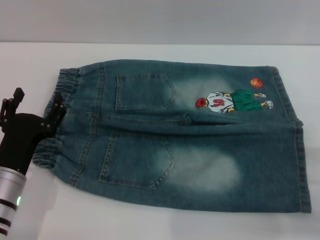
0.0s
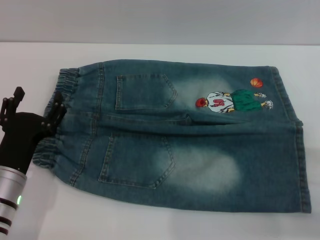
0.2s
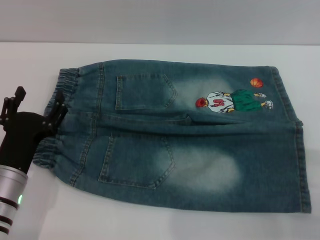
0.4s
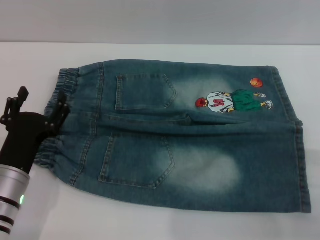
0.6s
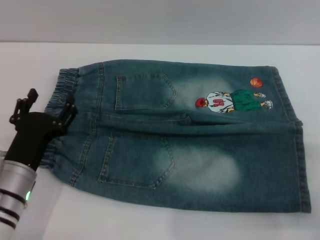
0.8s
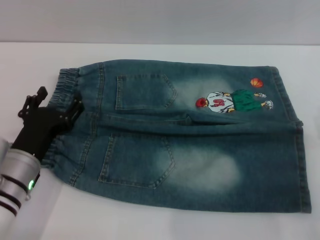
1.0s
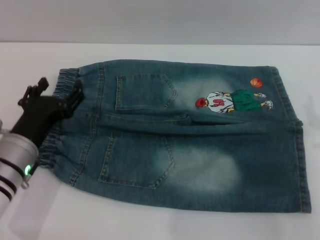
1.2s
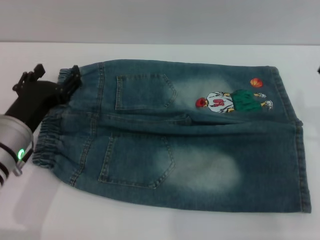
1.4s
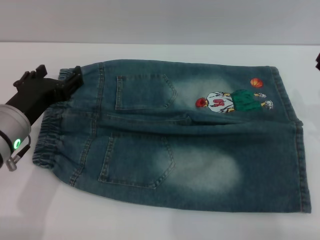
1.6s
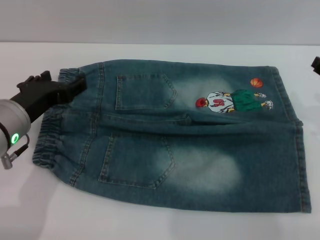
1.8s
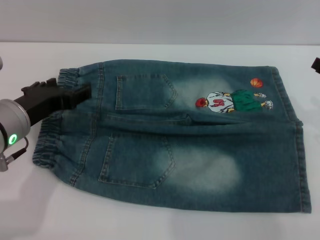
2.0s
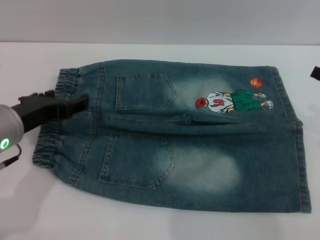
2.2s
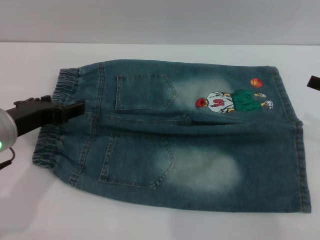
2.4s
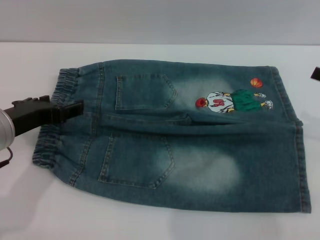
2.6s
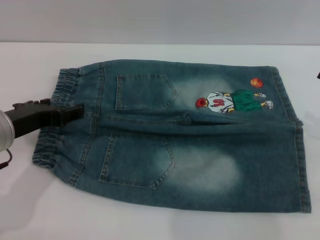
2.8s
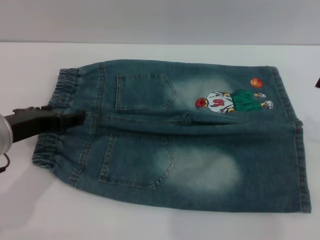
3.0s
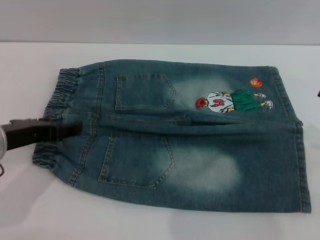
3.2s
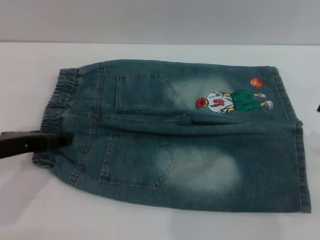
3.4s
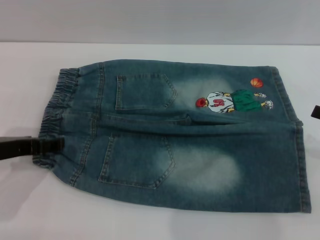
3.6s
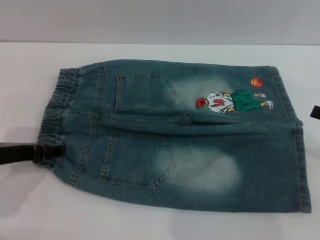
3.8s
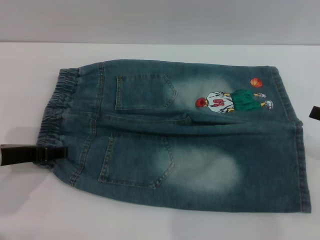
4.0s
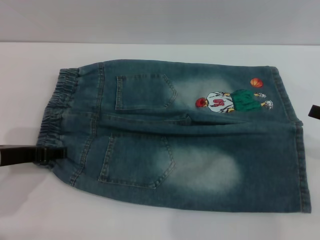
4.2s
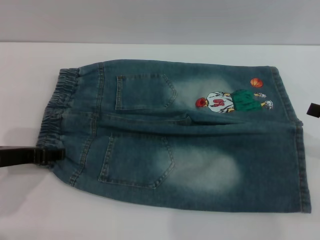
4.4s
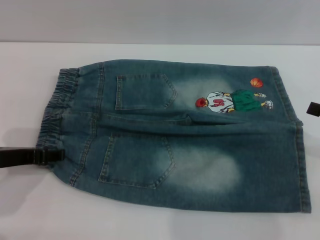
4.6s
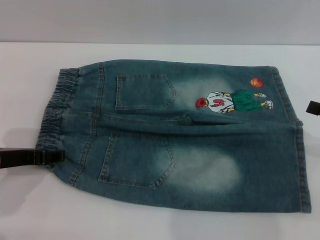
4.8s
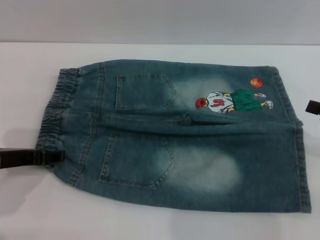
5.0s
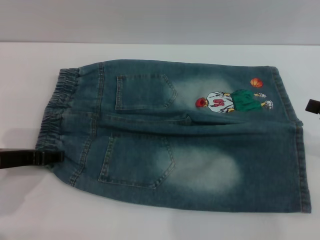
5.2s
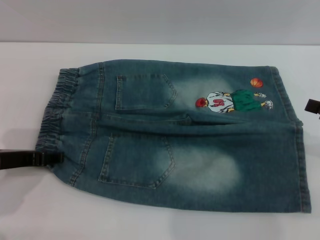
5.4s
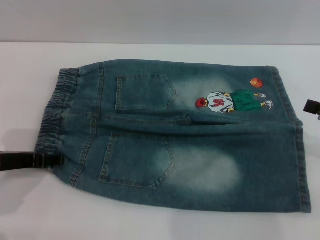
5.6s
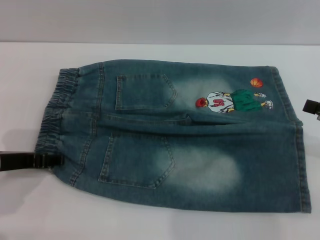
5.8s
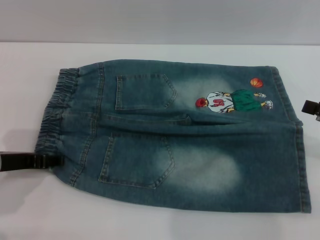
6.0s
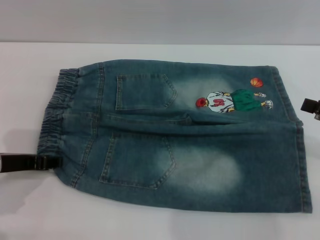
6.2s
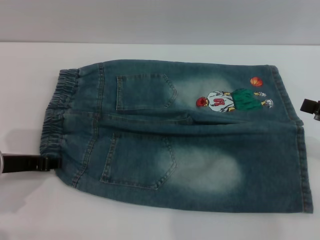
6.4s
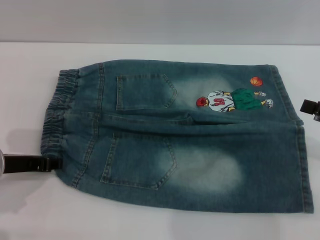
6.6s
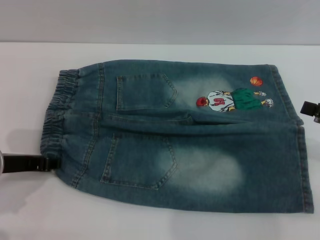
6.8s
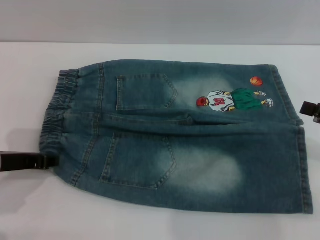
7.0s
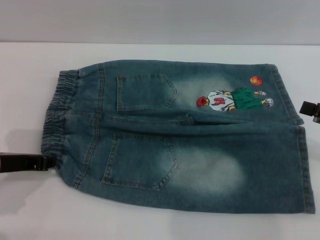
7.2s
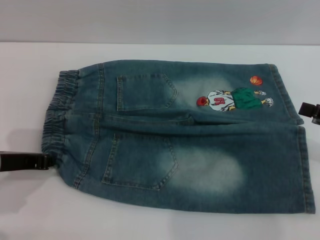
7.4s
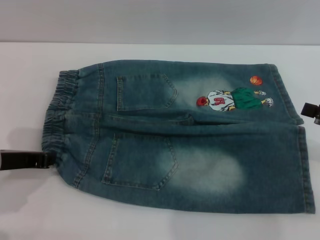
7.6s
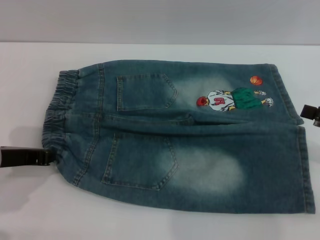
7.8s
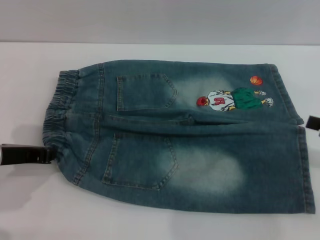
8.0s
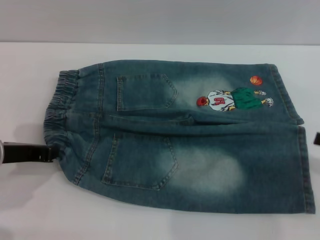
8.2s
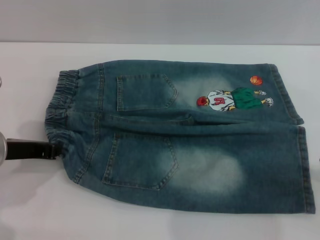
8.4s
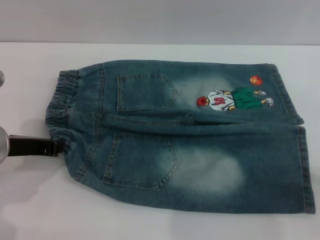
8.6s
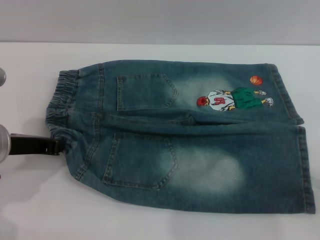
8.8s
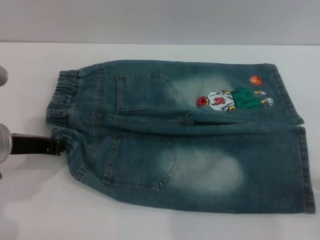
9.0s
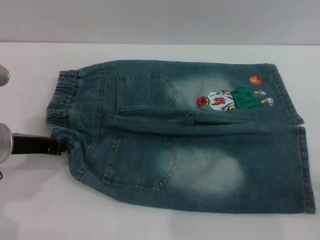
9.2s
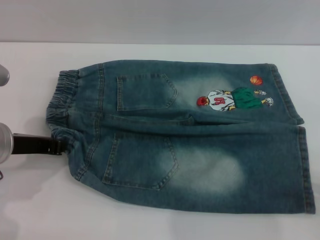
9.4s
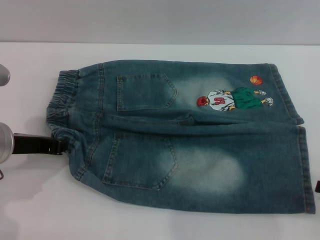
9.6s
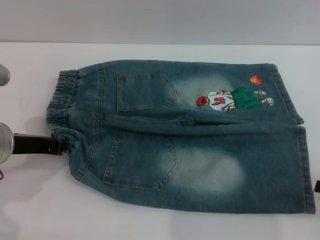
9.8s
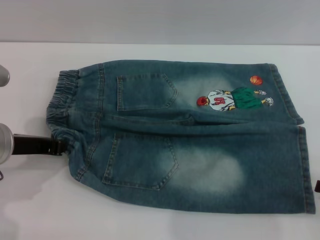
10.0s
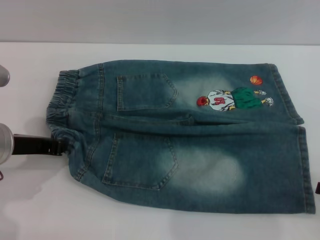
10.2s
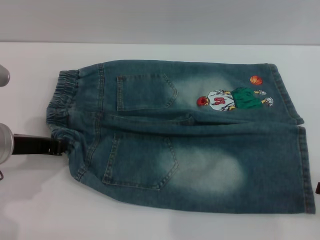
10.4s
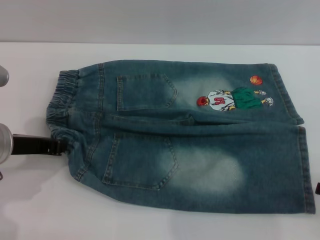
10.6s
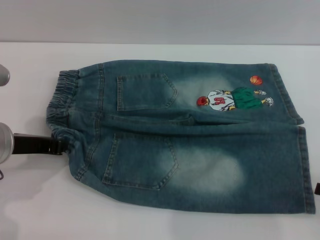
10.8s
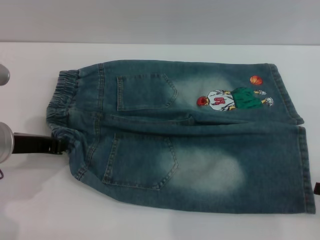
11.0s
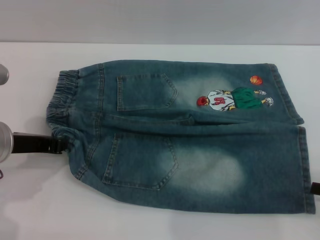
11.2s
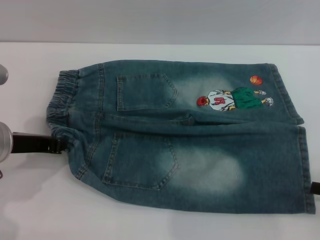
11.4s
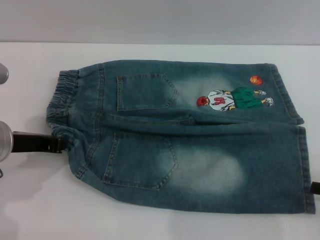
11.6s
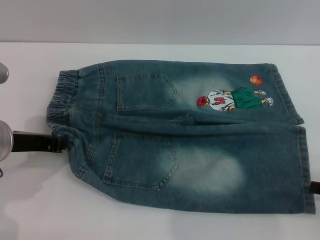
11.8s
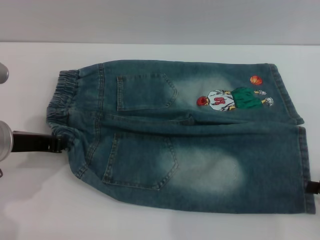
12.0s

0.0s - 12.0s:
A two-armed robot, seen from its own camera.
0.0s - 1.6s: Both grippers travel together upward and forward, about 10 cm.
3.0s - 4.4s: The grippers make only small movements.
4.4s - 6.0s: Both grippers stay put.
6.0s - 7.6s: The left gripper closes.
10.4s - 12.0s: Neither gripper changes place.

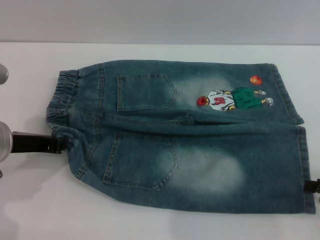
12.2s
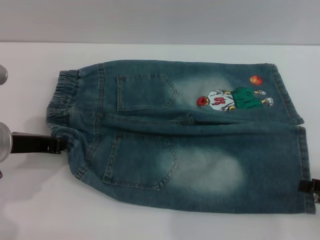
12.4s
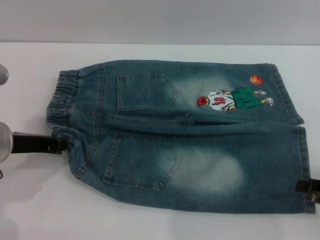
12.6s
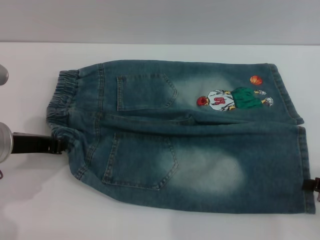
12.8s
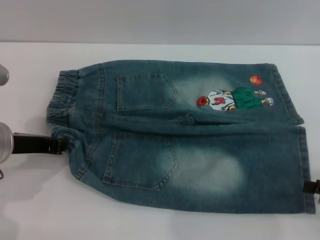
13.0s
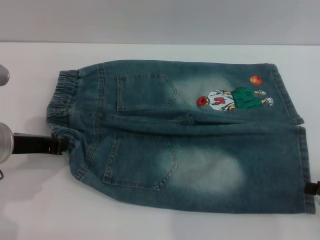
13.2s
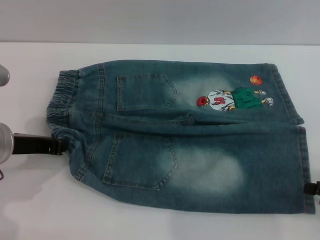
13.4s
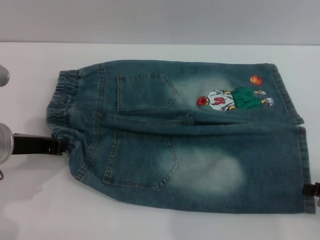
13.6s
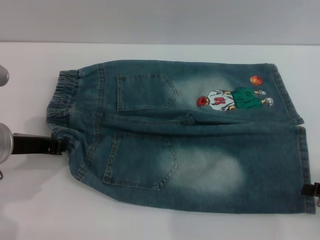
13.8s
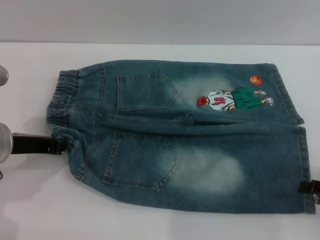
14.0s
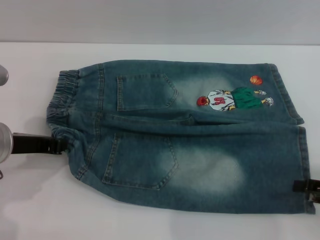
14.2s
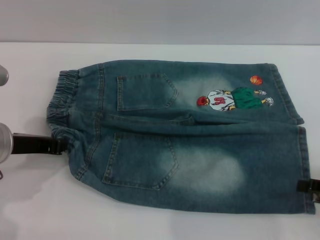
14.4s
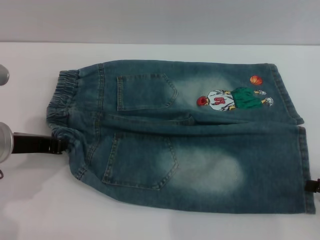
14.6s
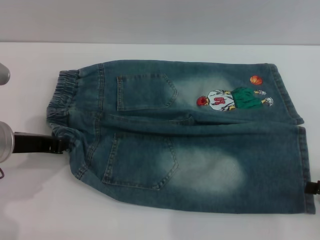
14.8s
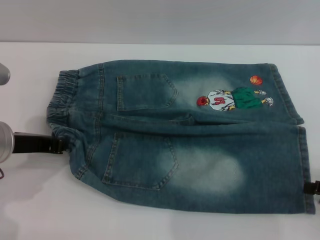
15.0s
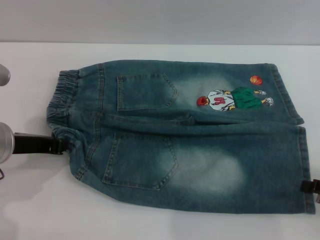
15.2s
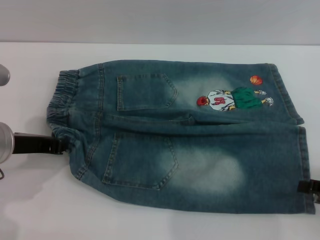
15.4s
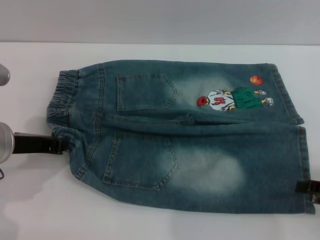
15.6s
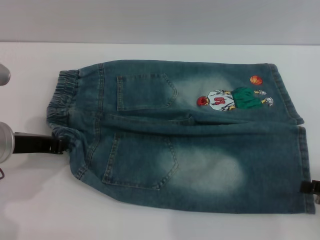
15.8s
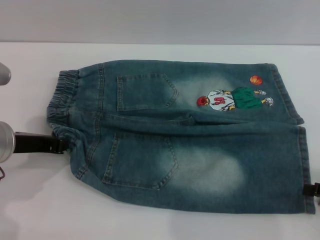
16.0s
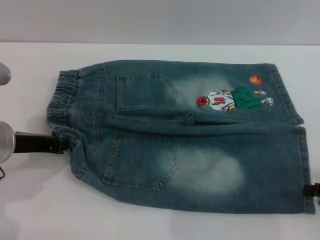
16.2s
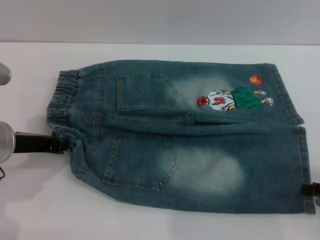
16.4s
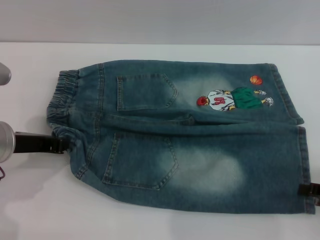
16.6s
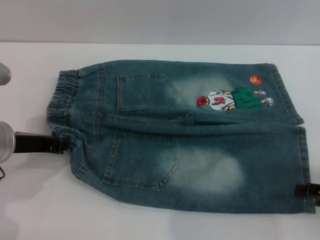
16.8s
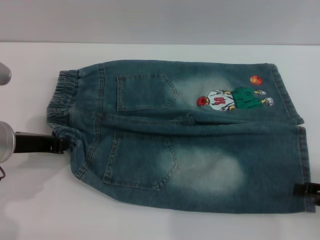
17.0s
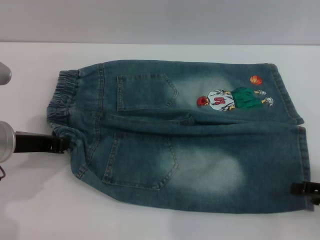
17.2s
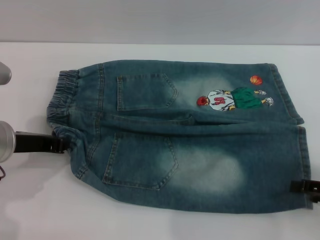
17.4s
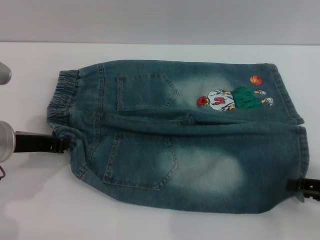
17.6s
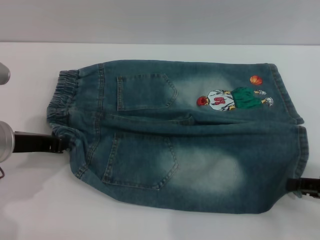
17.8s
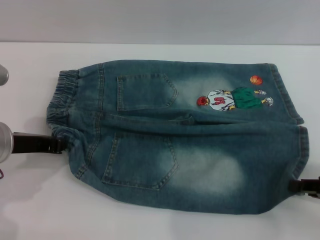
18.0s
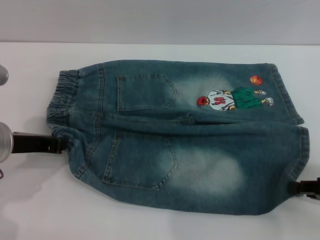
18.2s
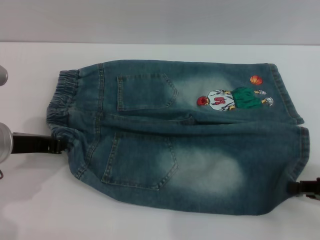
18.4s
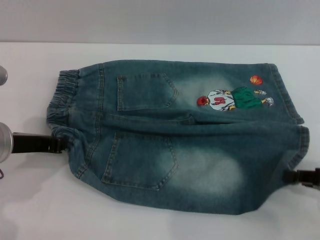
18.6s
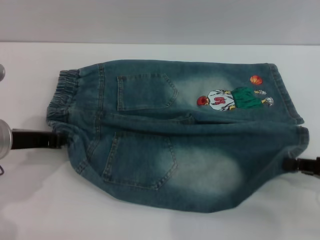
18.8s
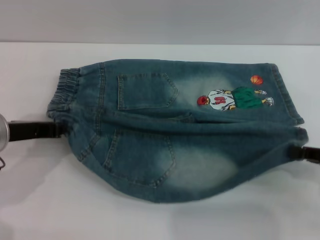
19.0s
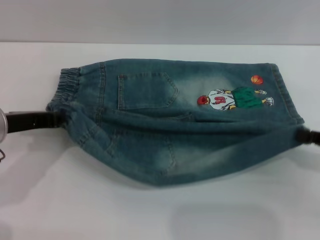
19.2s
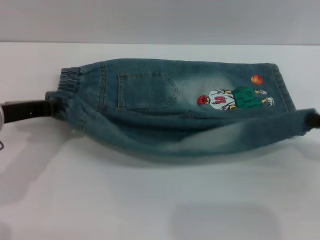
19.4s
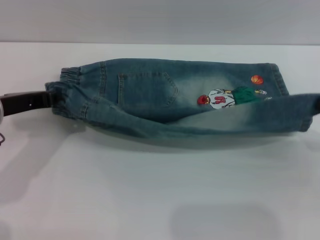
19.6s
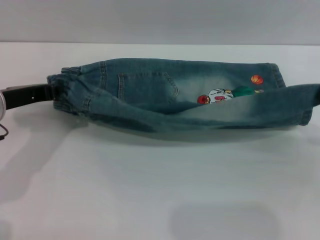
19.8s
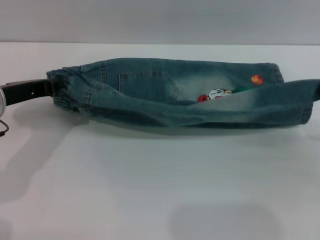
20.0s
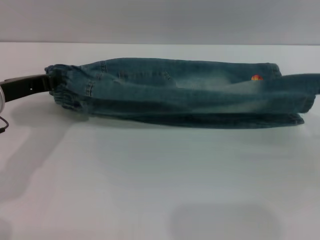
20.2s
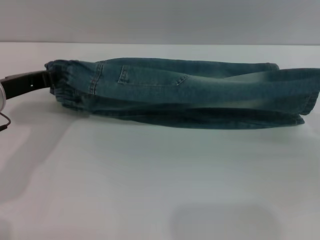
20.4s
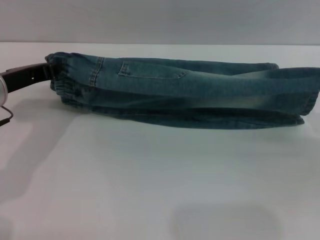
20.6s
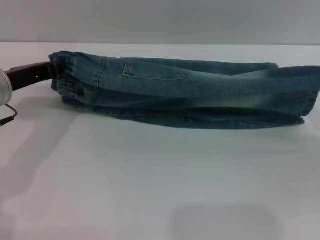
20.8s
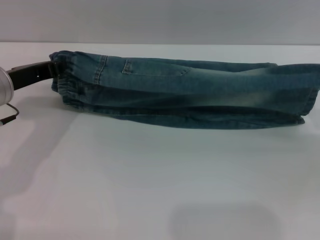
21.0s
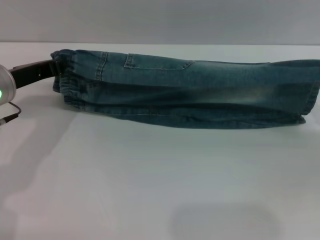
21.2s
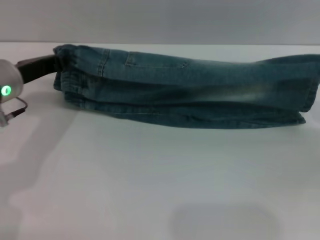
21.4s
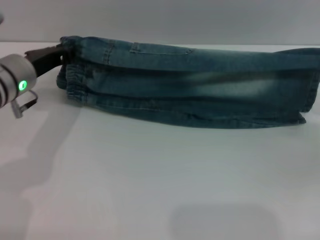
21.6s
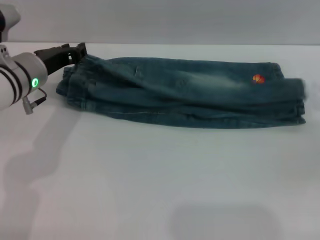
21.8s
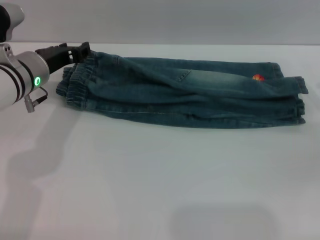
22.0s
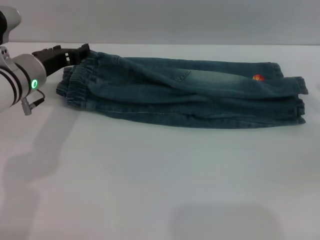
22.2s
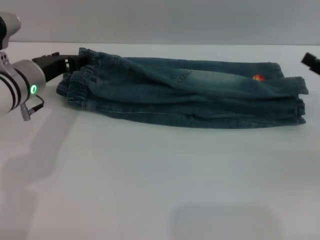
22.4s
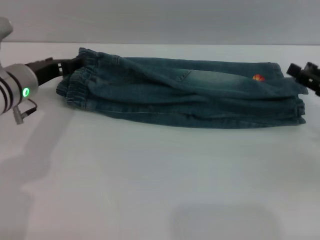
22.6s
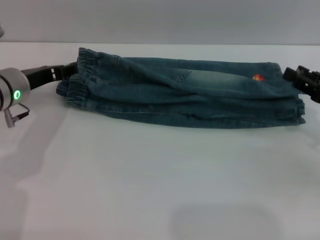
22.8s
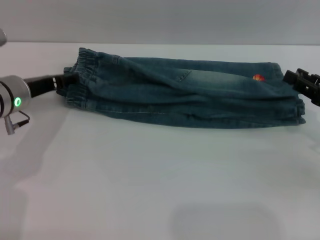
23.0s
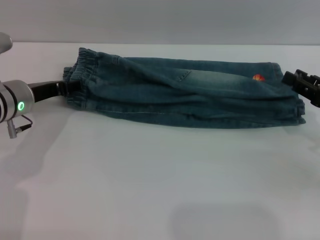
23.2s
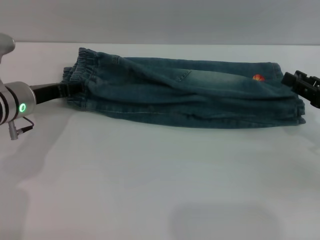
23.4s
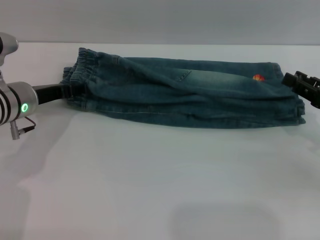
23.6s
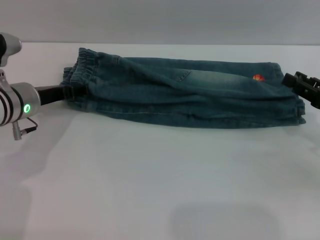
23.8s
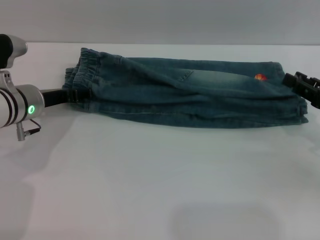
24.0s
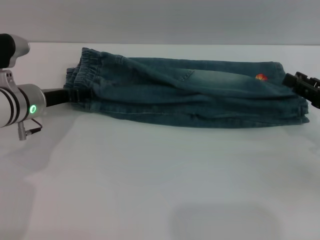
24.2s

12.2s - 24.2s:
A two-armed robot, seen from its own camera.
Step, 12.2s - 22.4s: Fold the bottom of the pants upward with both grippers.
12.2s - 16.6s: The two grippers keep their place.
16.6s - 18.2s: The right gripper closes.
18.2s - 19.8s: The right gripper shifts by roughly 5 cm.
21.2s - 22.6s: The right gripper opens its fingers, while the left gripper moves approximately 5 cm, and opens up.
22.6s - 24.2s: The right gripper closes.
